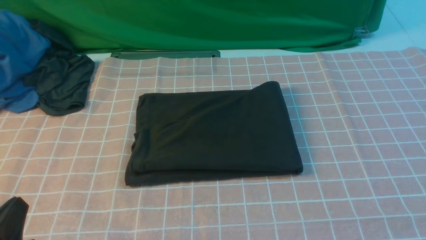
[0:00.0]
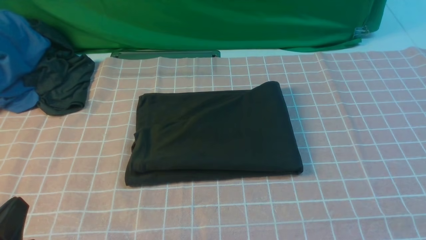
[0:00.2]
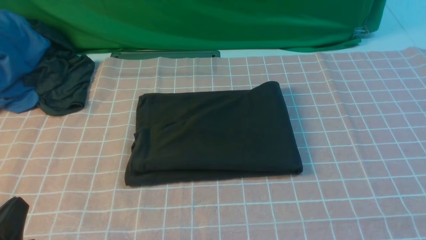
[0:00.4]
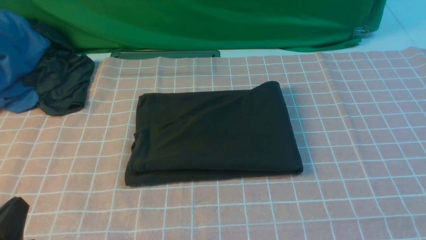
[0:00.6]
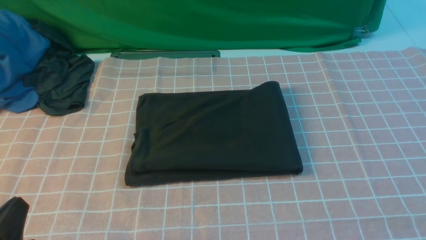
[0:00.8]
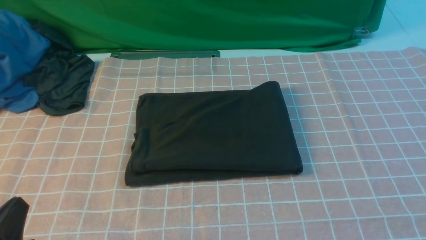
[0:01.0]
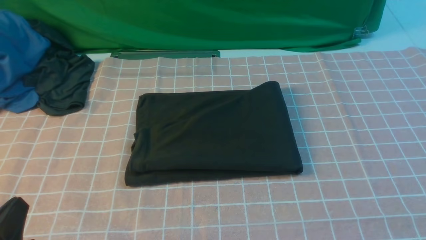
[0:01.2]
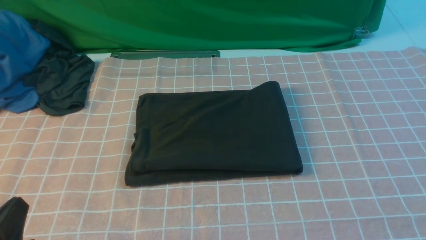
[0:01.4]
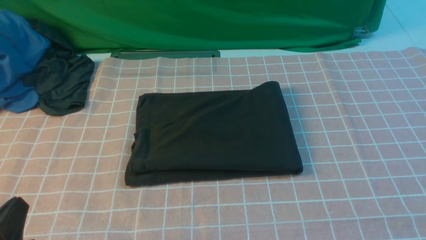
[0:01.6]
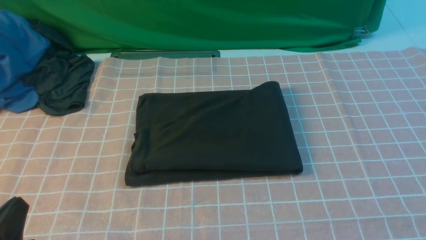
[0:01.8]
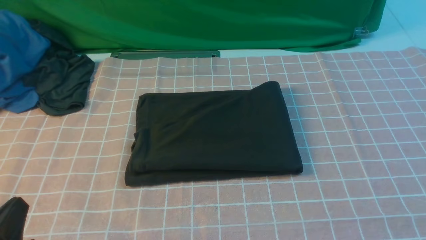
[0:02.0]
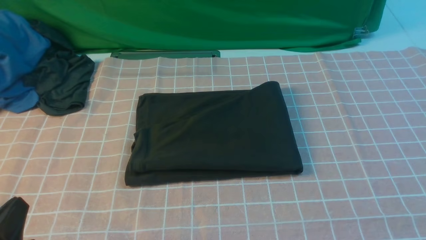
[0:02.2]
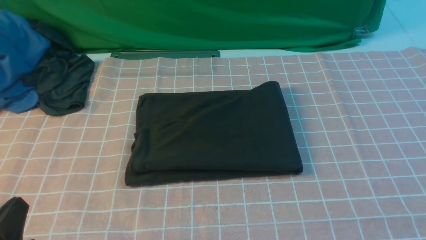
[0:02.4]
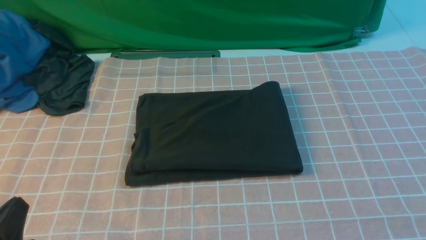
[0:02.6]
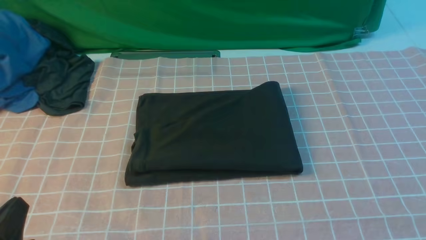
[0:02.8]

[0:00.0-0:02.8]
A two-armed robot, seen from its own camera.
0:01.4 to 0:02.8: The two grippers keep their place.

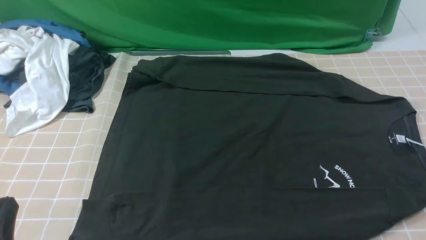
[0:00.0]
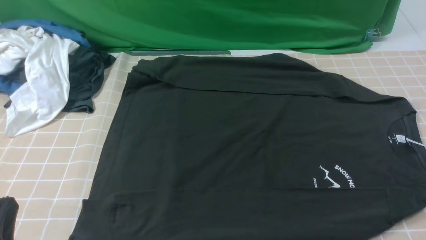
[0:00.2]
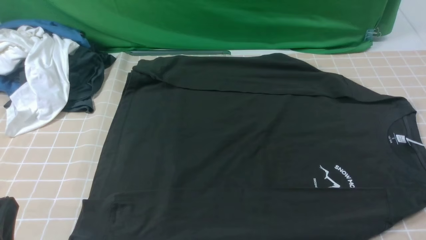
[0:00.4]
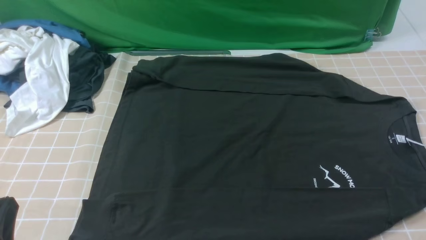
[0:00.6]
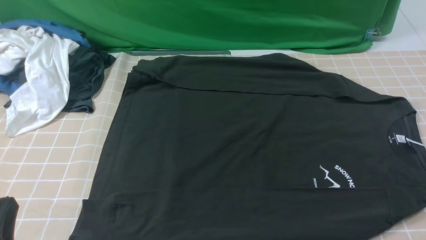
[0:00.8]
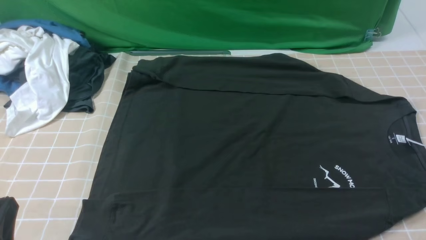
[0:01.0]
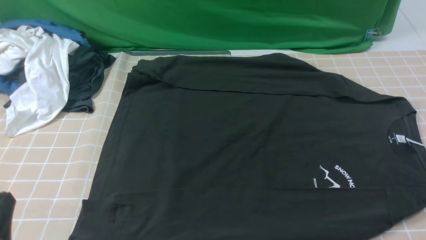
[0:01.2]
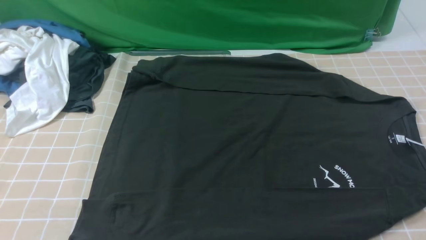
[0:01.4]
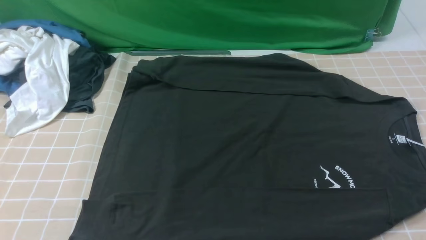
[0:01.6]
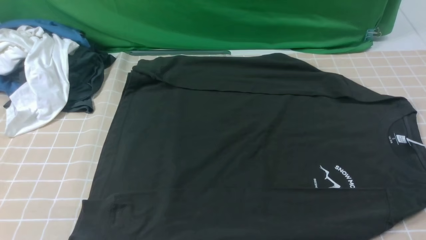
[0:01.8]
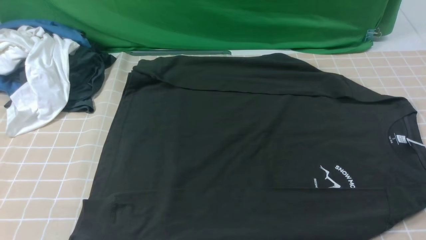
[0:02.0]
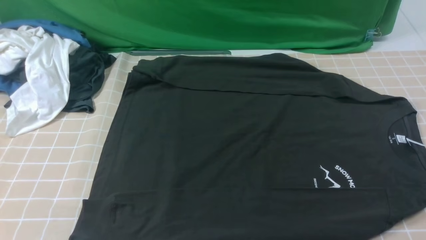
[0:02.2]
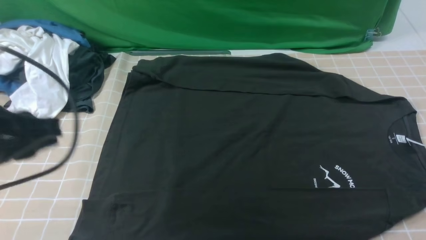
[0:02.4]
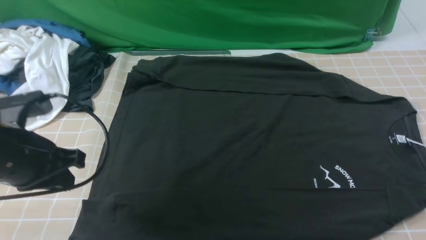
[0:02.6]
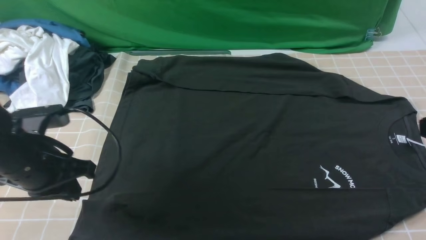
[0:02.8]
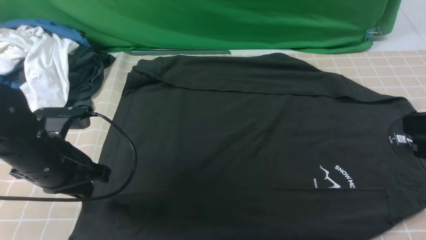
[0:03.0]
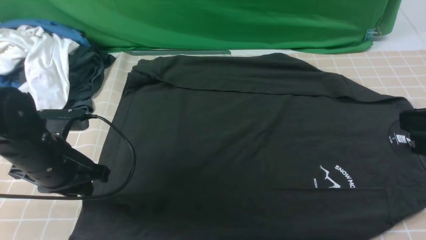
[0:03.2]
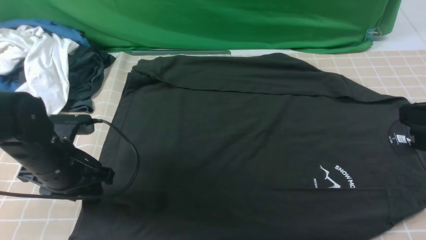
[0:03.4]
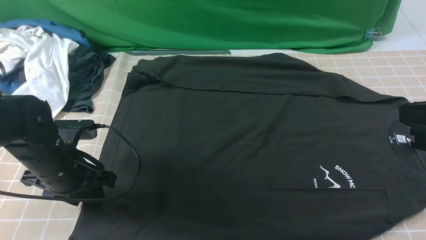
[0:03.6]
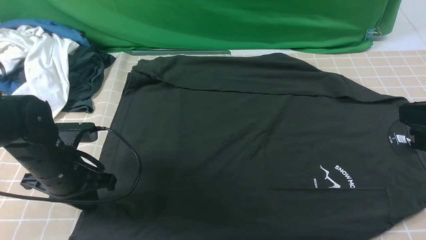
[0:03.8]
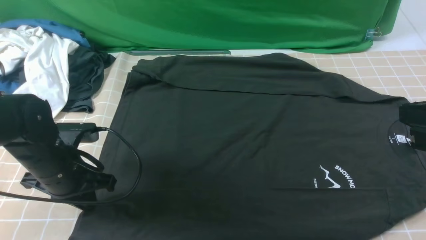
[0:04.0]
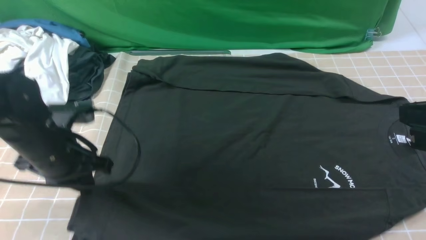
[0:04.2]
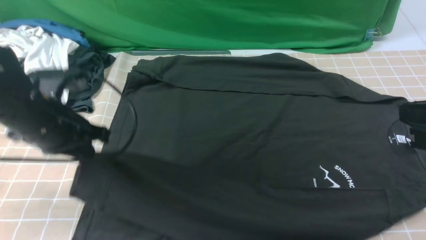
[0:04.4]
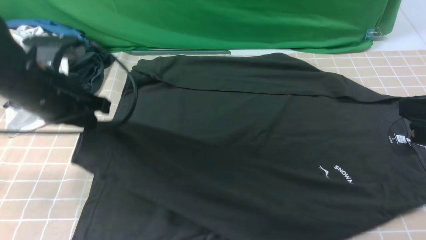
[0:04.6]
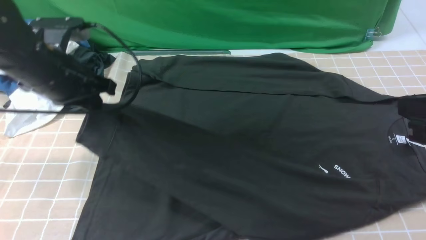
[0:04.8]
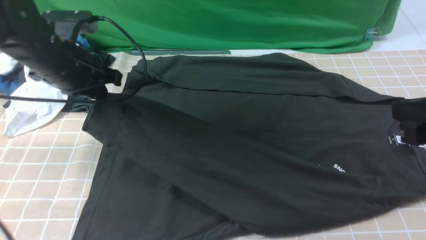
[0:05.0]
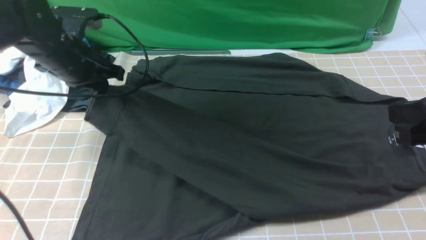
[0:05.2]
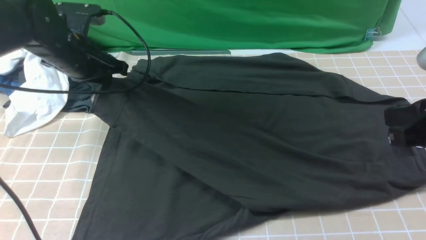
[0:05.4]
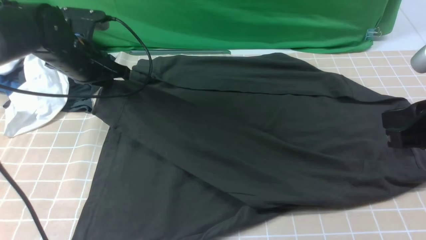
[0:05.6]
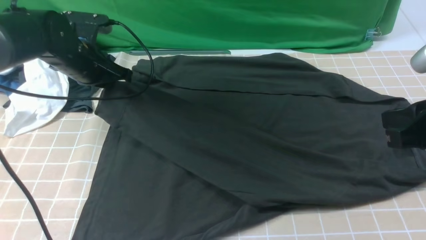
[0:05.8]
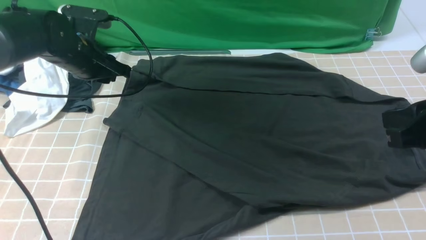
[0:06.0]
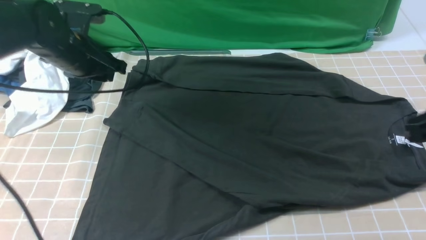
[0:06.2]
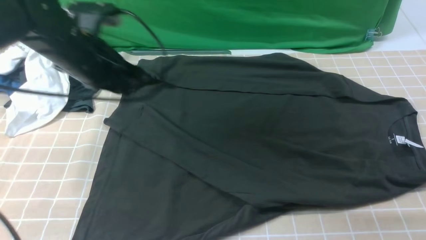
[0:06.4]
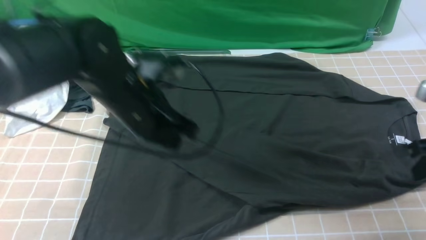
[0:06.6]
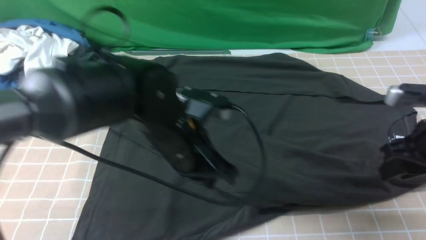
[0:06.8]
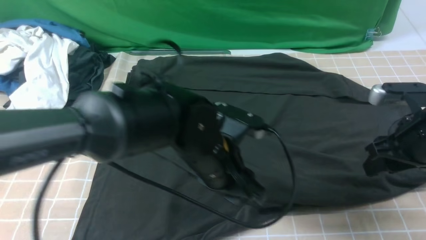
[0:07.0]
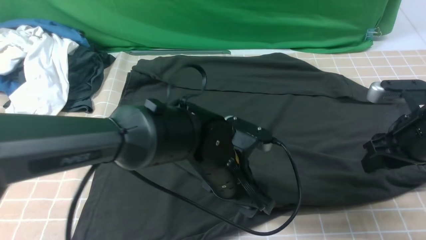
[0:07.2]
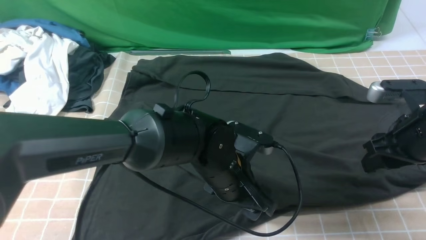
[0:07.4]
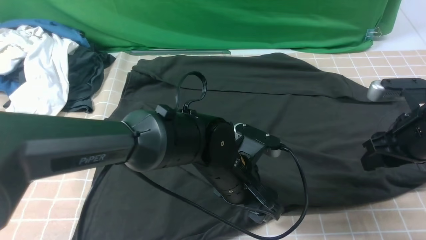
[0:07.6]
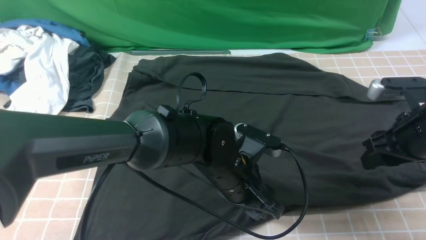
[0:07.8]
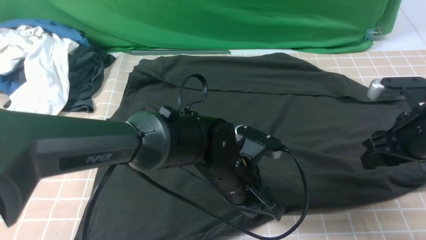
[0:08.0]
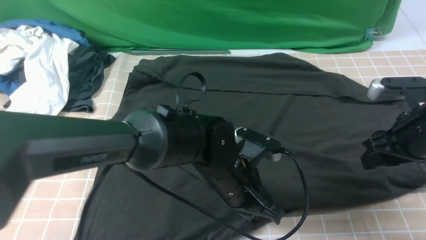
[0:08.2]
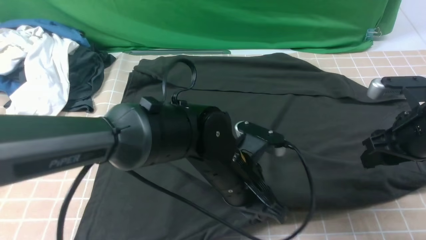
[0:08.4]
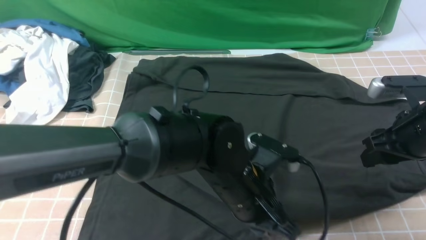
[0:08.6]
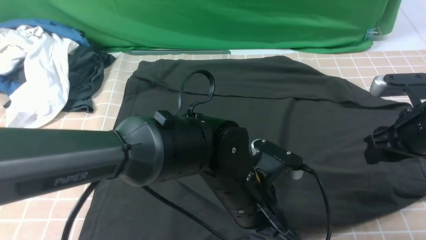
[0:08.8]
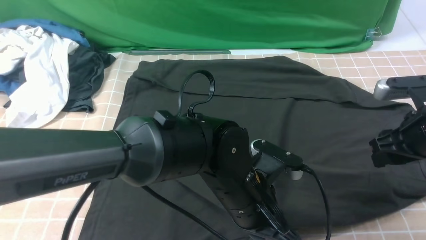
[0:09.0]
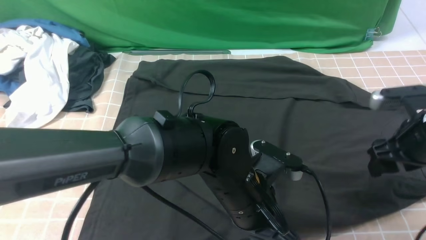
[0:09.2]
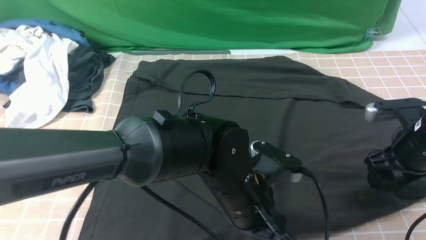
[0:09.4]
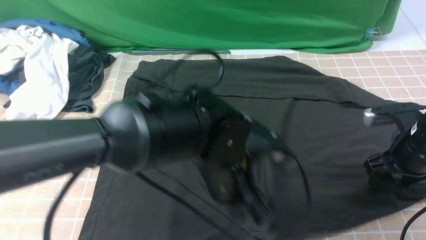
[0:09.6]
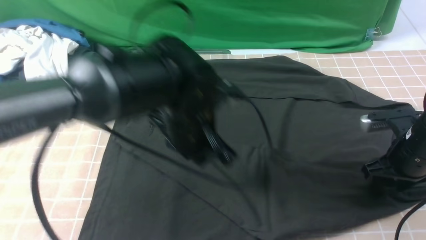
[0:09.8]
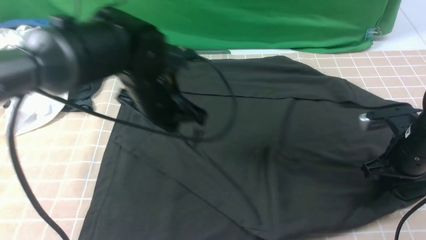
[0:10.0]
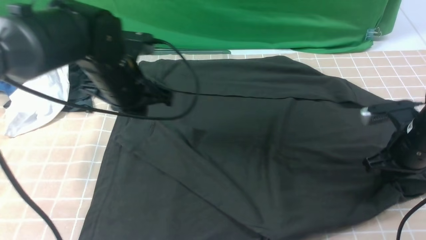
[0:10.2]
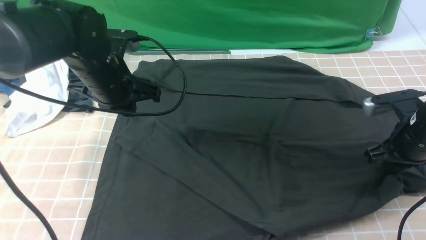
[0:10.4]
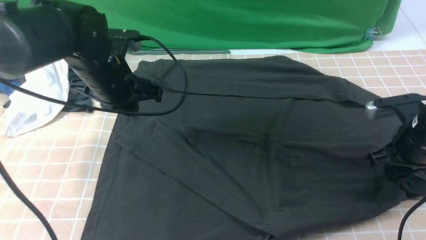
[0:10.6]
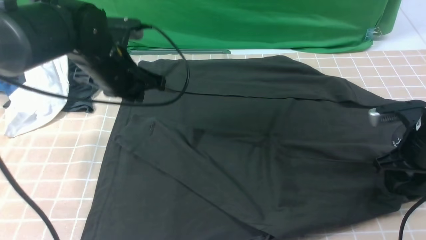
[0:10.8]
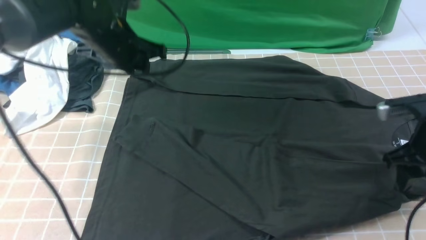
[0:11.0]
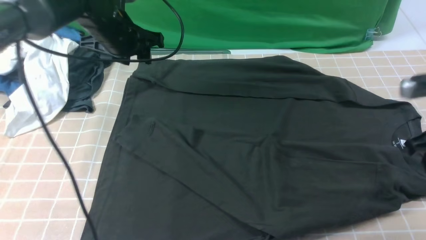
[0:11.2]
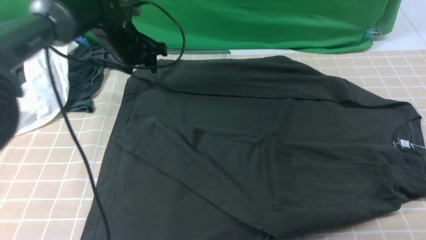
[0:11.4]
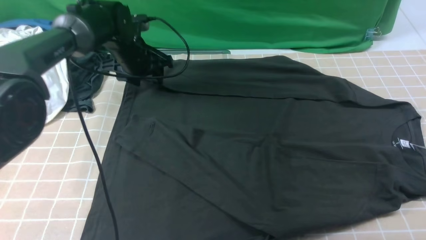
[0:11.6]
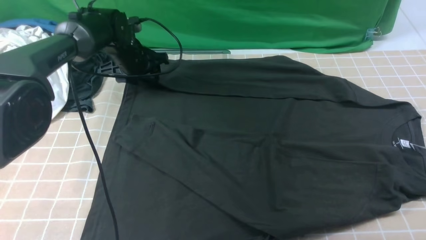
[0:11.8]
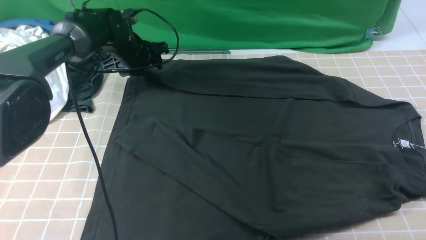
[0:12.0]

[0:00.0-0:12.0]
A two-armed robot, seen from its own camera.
Step, 0:00.0 to 0:04.0: use the left arm to clamp the cuff closest to it.
Step, 0:04.2 to 0:06.2: use the left arm to drag and place the cuff at the centered position on the left edge of the fabric.
Step, 0:06.4 to 0:11.8: use the left arm to clamp the cuff farthest from it.
0:00.0 to 0:01.6: The left gripper goes approximately 5 cm upward.
0:01.6 to 0:03.0: The left gripper is displaced forward by roughly 20 cm; the right gripper is displaced upward and forward by some 15 cm, and closes up.
0:03.0 to 0:04.4: The left gripper ends up some 5 cm from where it was, and opens, then closes again.
0:04.4 to 0:06.0: The left gripper moves forward, approximately 15 cm.
0:06.0 to 0:07.6: The right gripper goes approximately 10 cm downward and forward, and opens. The left gripper is displaced to the right and backward by roughly 30 cm, and opens its fingers.
0:07.6 to 0:09.0: The left gripper changes place by roughly 5 cm, and closes its fingers.
0:09.0 to 0:10.4: The right gripper closes. The left gripper goes some 25 cm to the left and forward, and opens, then closes once more.
0:10.4 to 0:12.0: The left gripper travels forward and downward by roughly 20 cm, and opens up. Meanwhile the right gripper is displaced upward and backward by roughly 20 cm, and opens, then closes once more.

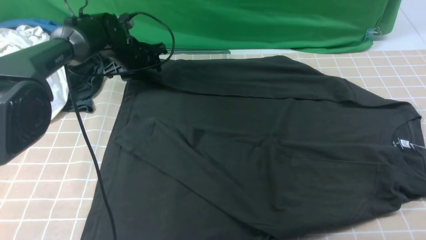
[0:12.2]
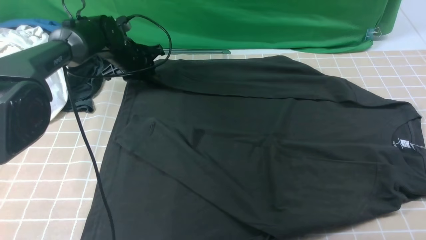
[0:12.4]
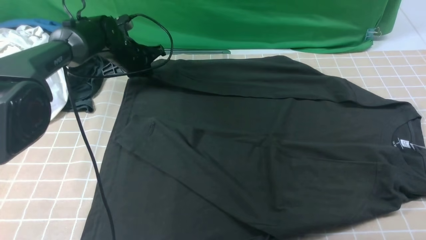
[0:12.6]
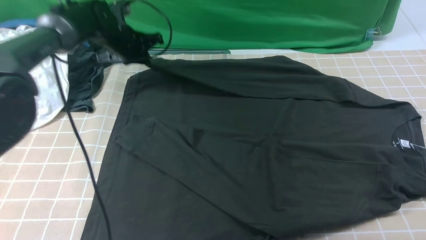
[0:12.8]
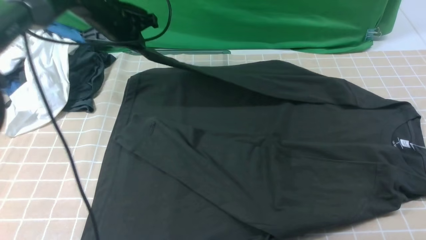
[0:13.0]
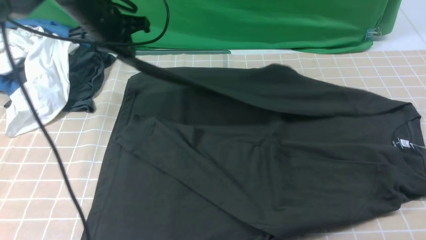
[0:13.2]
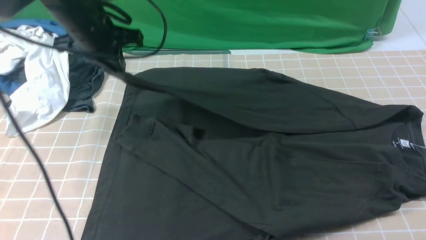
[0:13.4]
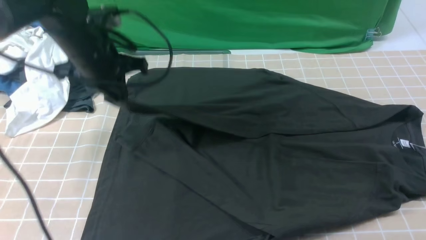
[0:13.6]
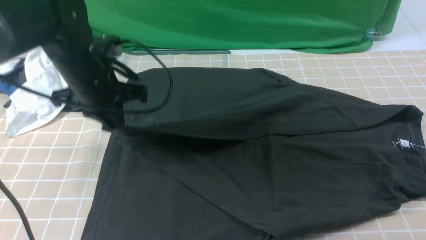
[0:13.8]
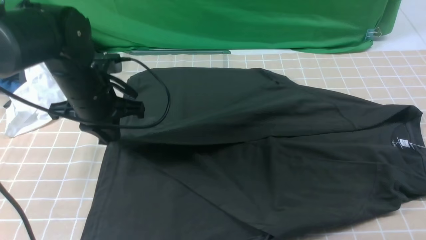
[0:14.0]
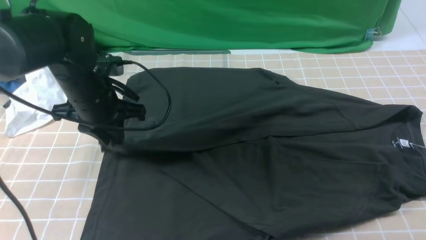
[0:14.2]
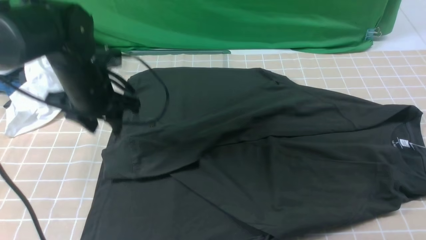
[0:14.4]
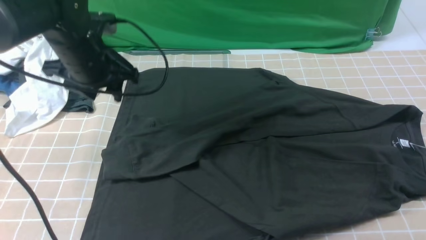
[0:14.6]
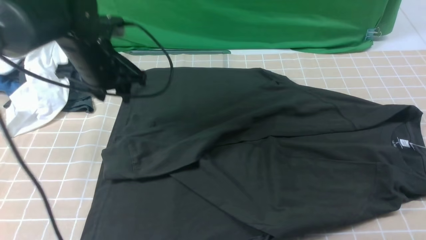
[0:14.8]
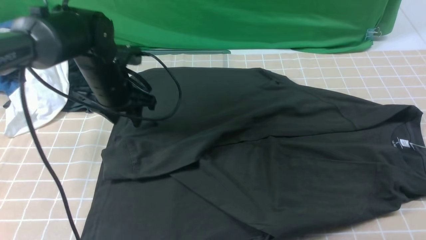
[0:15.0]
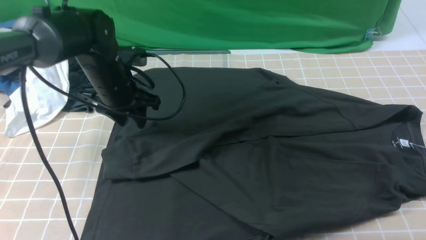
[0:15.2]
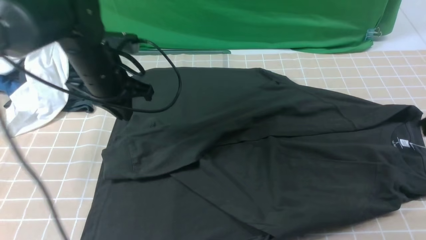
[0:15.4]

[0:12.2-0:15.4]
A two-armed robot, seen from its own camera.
Step, 0:12.2 to 0:14.2: use the left arm to drag and drop the cuff onto the cuff closest to the left arm.
0:12.2 to 0:13.8: The left gripper goes roughly 20 cm backward and upward, and closes up.
0:13.8 to 0:15.4: The left gripper opens, then closes once more.
